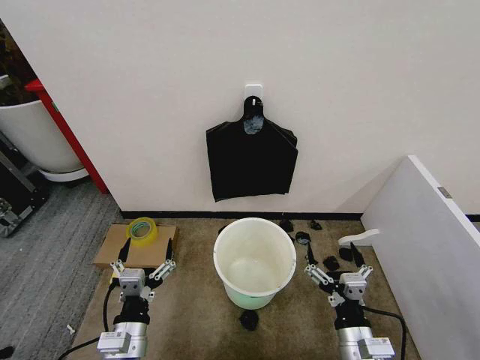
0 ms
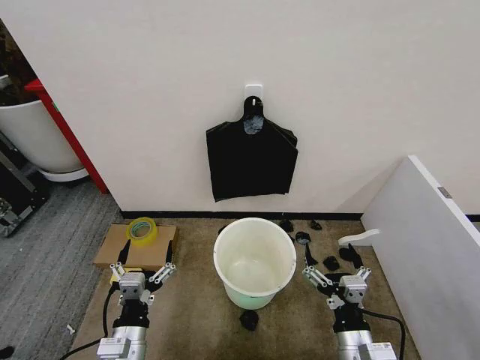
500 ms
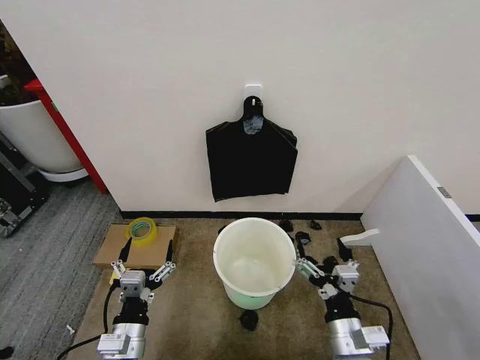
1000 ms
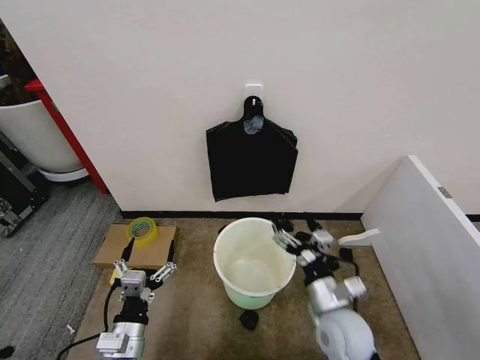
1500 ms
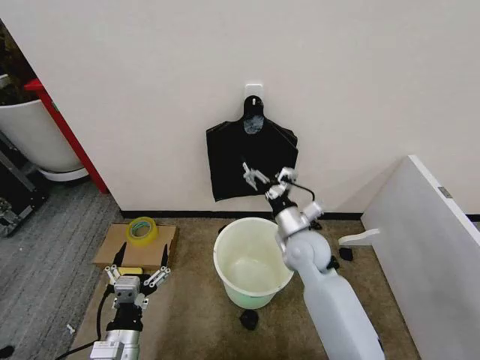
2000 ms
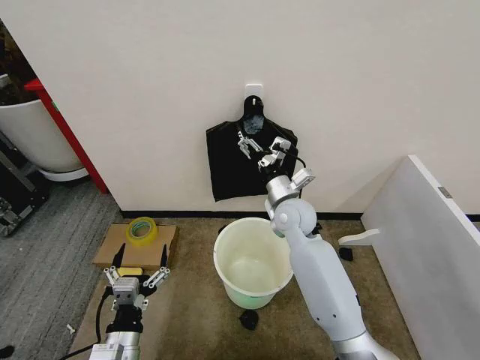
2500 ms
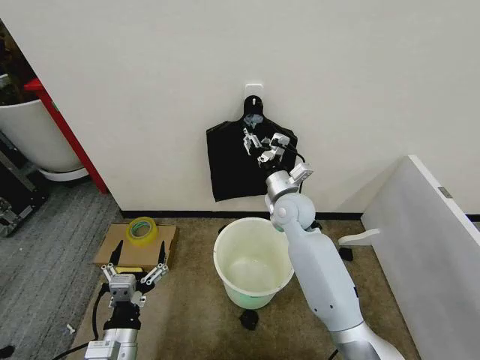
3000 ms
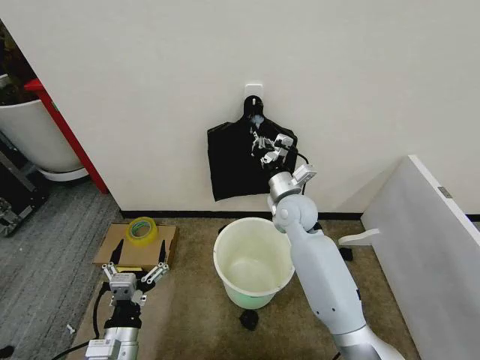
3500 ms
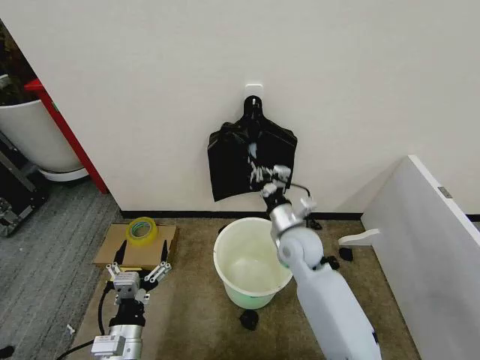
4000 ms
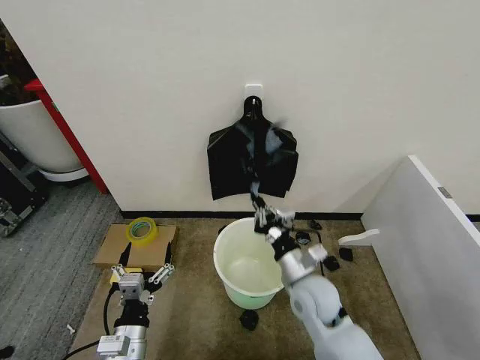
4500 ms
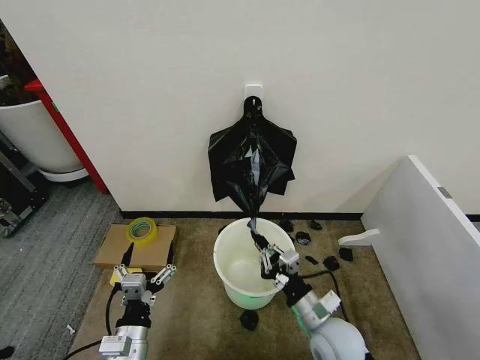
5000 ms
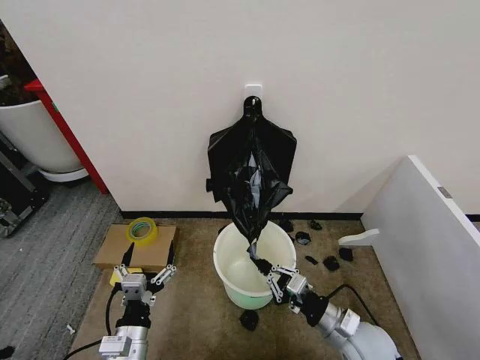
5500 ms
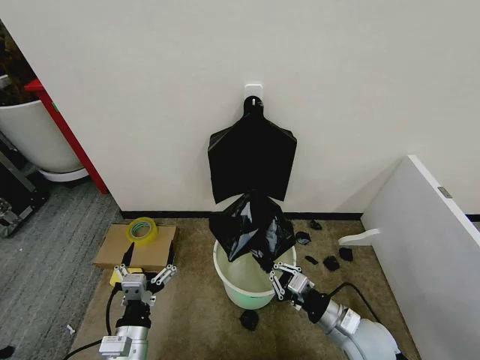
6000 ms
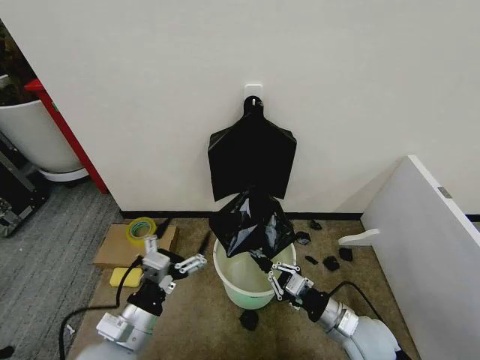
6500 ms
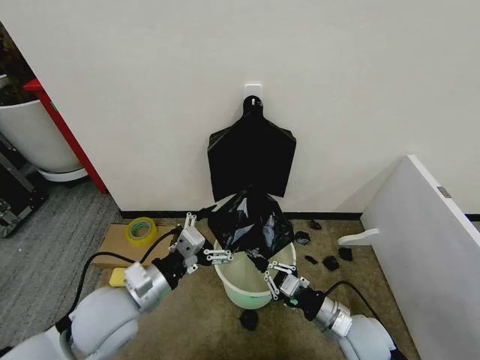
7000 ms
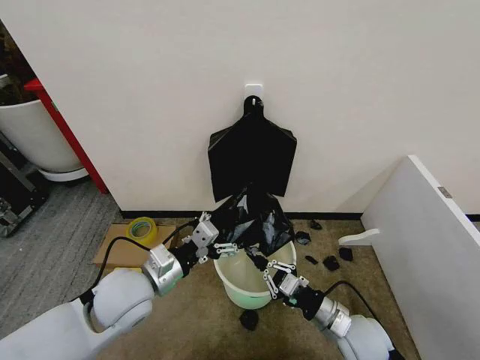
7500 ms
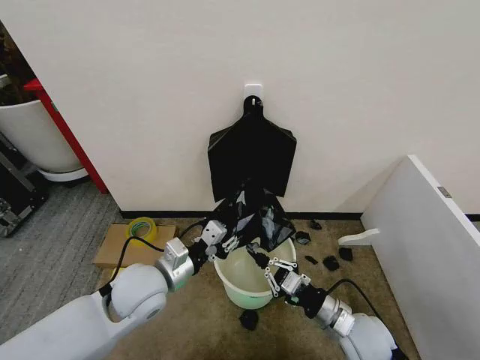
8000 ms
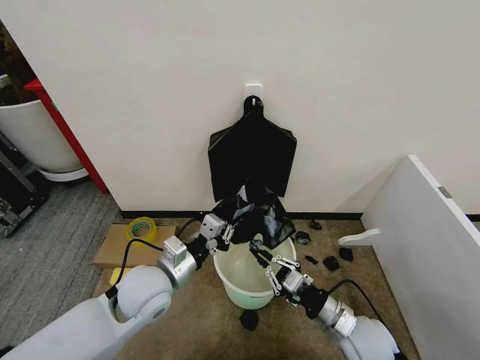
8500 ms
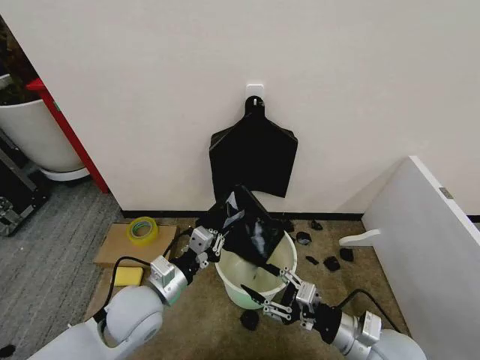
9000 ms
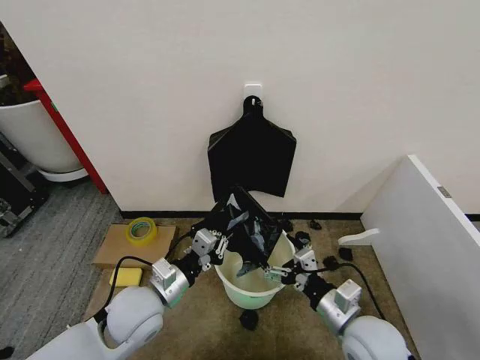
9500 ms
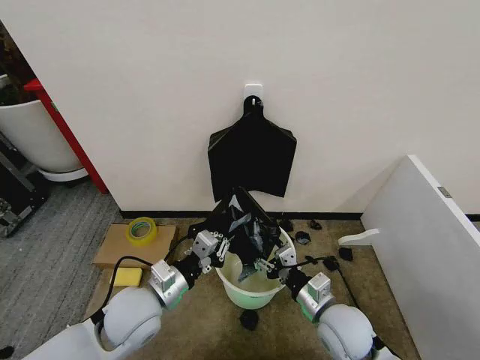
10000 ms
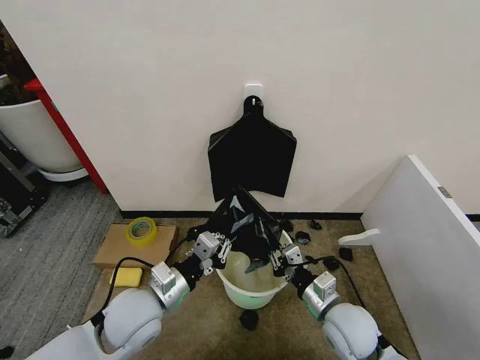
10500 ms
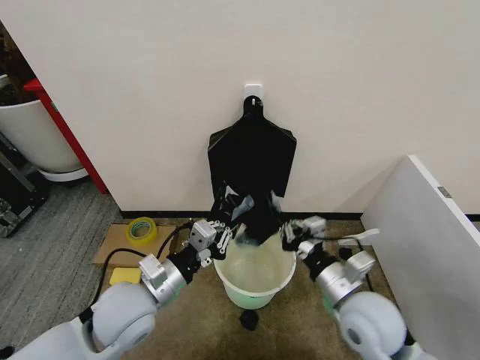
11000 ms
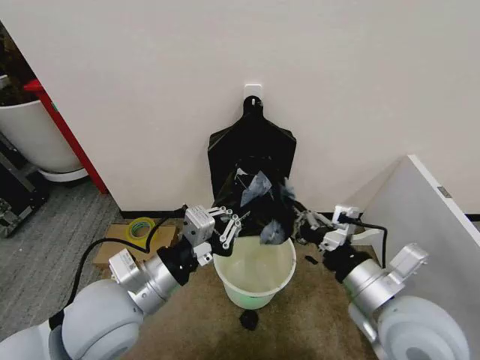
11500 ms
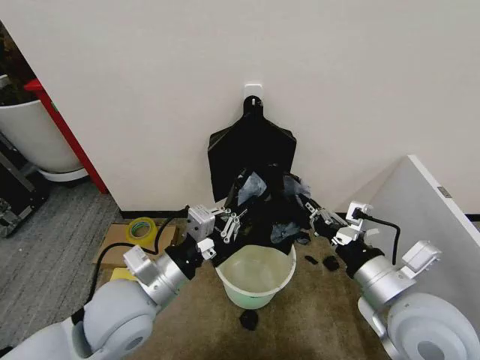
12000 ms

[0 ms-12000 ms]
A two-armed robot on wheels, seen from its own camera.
Task of the whole recording: Place the garbage bag over the trash bin.
2000 ms to 4000 ms: The right gripper reaches some 10 cm forward, then returns, and closes.
4000 ms to 6000 ms: The right gripper is displaced backward, to the right and downward by about 25 cm.
6000 ms to 8000 ms: The left gripper goes approximately 20 cm forward and upward, and closes its fingers.
8000 ms to 10000 ms: The right gripper opens up.
10000 ms to 12000 ms: The right gripper shifts roughly 15 cm upward, and closes. The left gripper is displaced upward by about 10 cm.

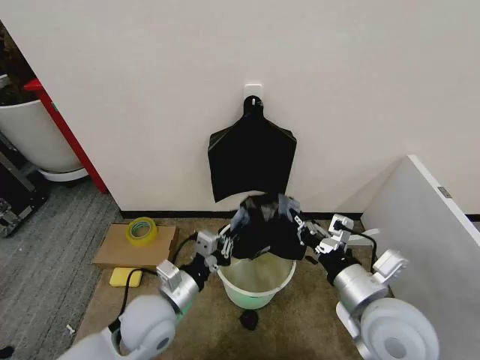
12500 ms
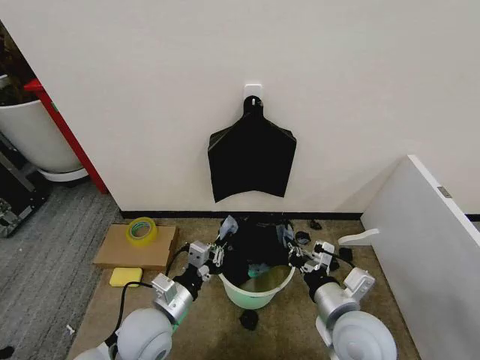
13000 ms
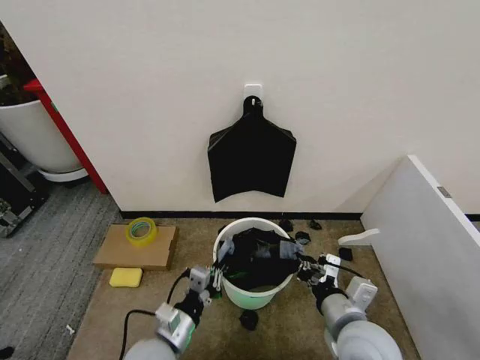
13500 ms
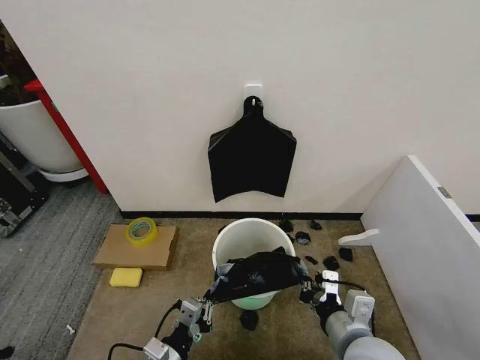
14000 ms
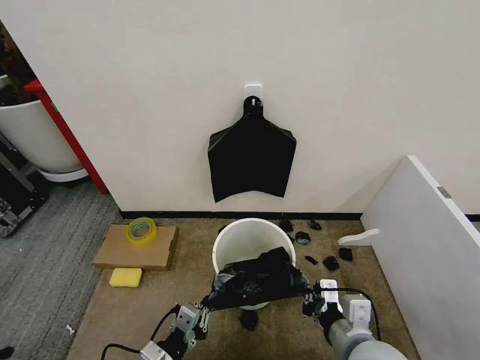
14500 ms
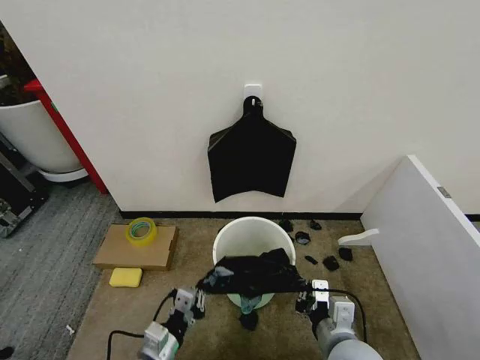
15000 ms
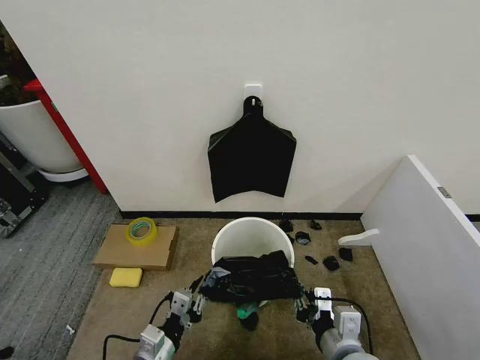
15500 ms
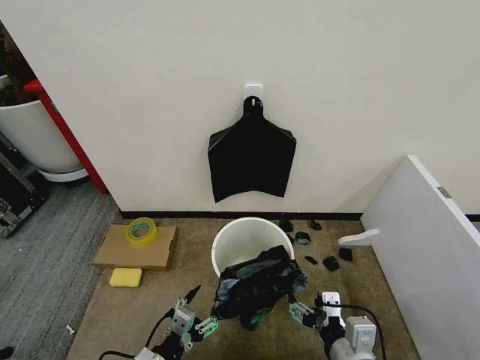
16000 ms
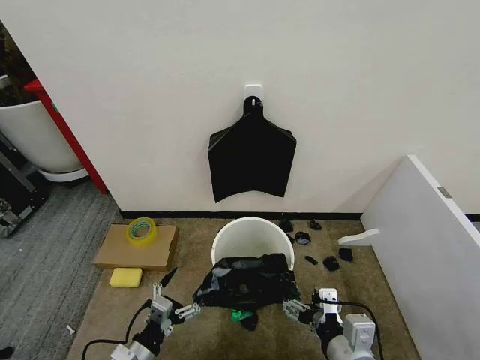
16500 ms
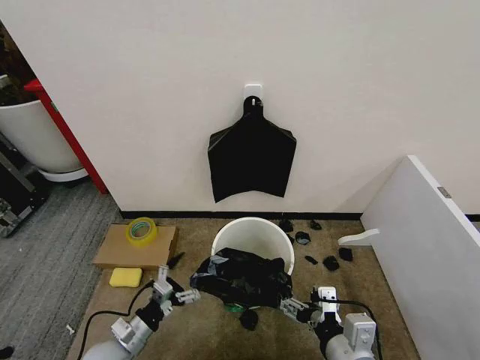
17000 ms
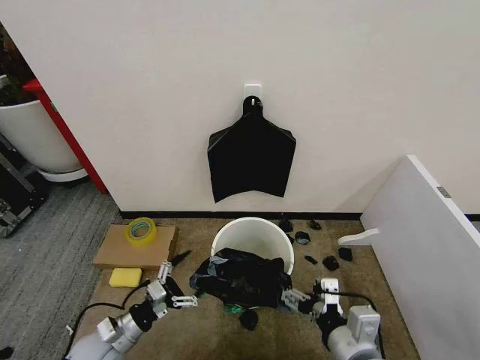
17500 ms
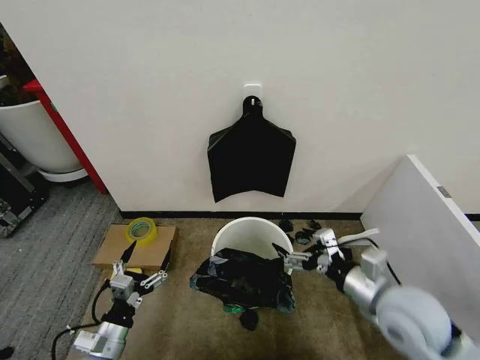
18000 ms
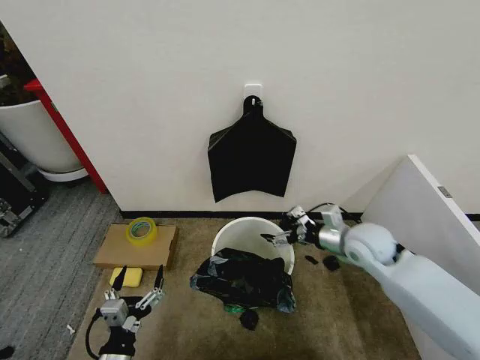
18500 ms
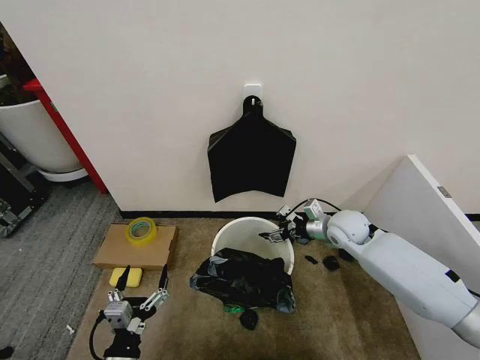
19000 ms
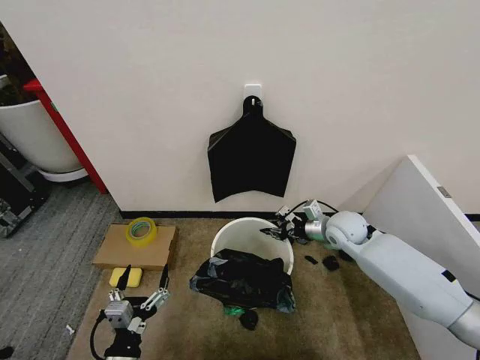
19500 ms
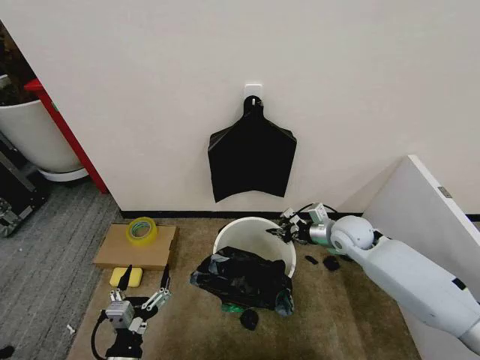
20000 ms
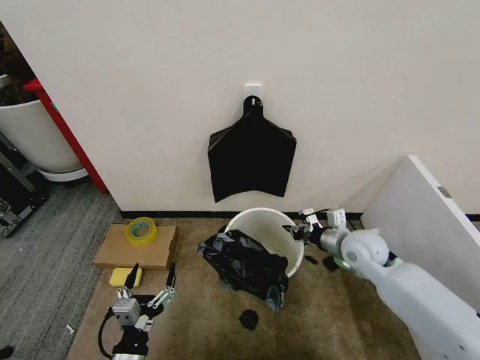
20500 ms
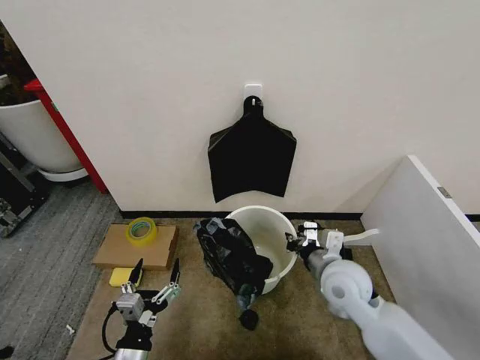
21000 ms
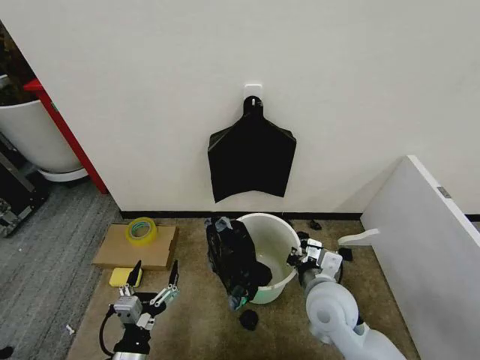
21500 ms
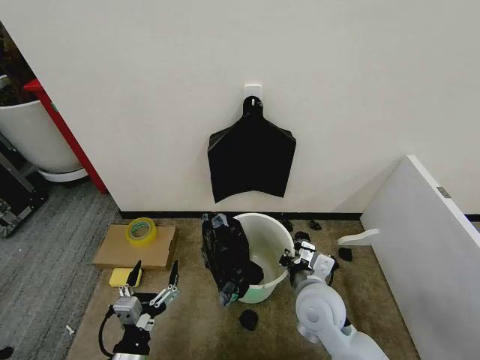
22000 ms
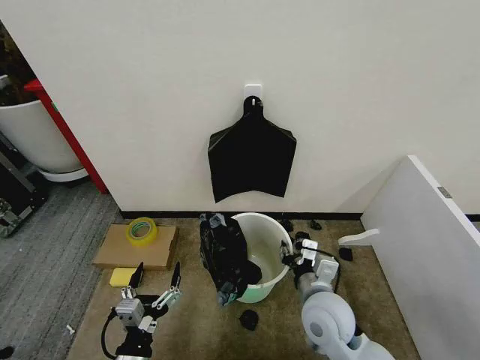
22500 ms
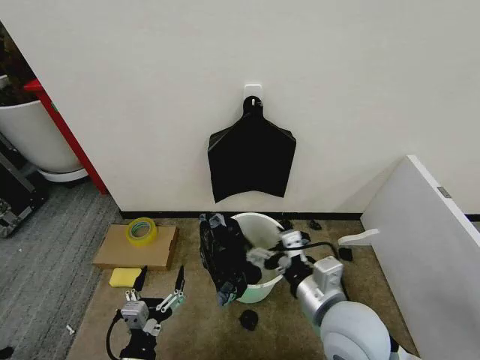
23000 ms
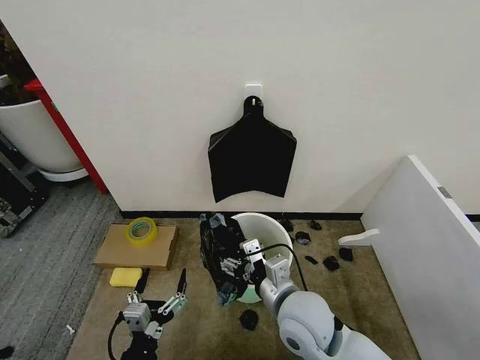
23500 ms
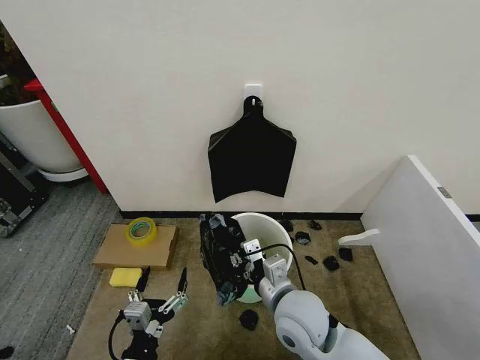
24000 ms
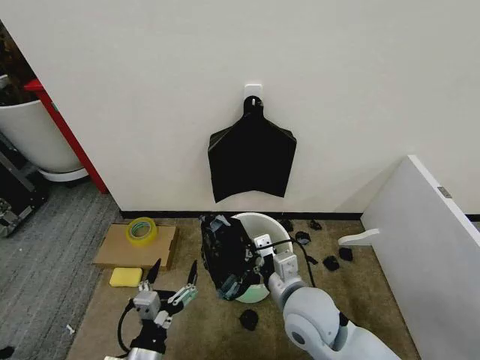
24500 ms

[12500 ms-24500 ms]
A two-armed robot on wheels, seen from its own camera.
Task of the whole recording: Place the garbage bag over the trash bin.
12500 ms to 14500 ms: The right gripper heads downward, covering about 5 cm; the left gripper heads backward and downward, covering about 15 cm.
14500 ms to 16500 ms: The right gripper opens up. The left gripper ends up approximately 5 cm from where it was, and opens its fingers.
16500 ms to 18500 ms: The left gripper reaches roughly 10 cm forward, then returns. The right gripper moves forward, approximately 25 cm.
18500 ms to 20500 ms: The right gripper closes up.
20500 ms to 22500 ms: The right gripper moves backward and to the left, approximately 20 cm, and opens up.
22500 ms to 24500 ms: The right gripper closes its fingers.

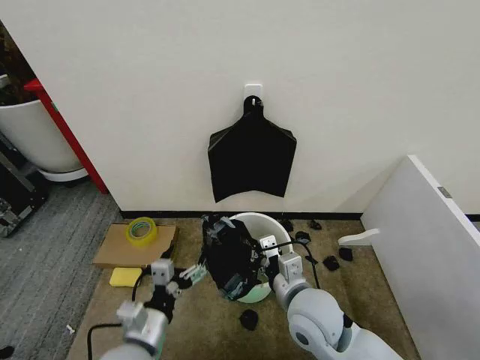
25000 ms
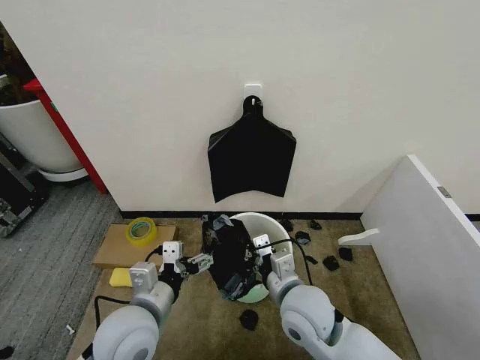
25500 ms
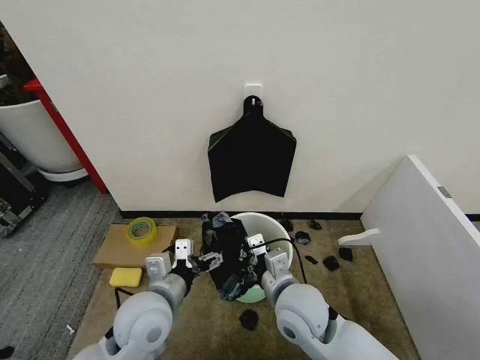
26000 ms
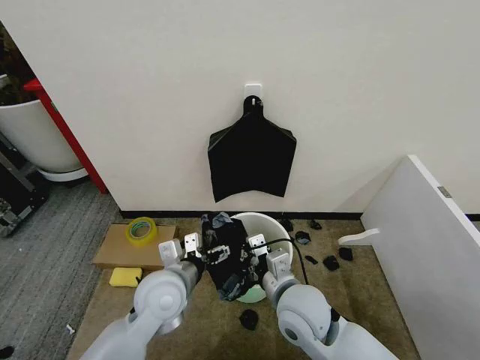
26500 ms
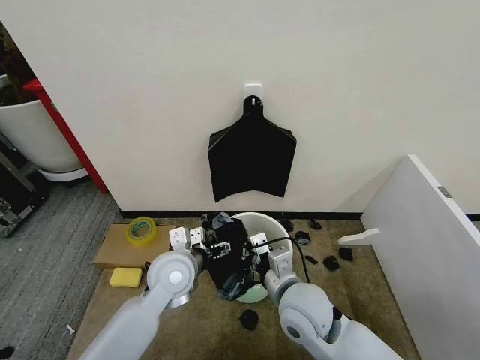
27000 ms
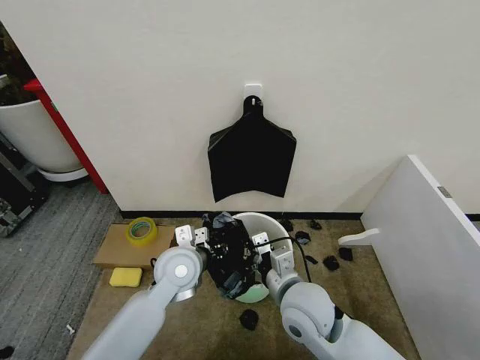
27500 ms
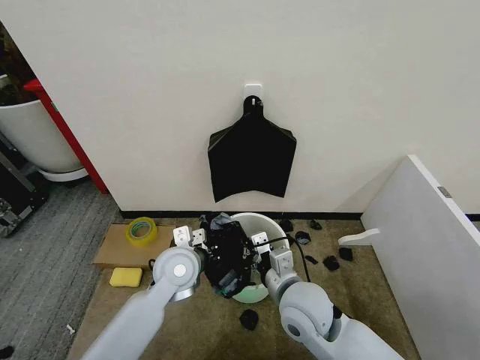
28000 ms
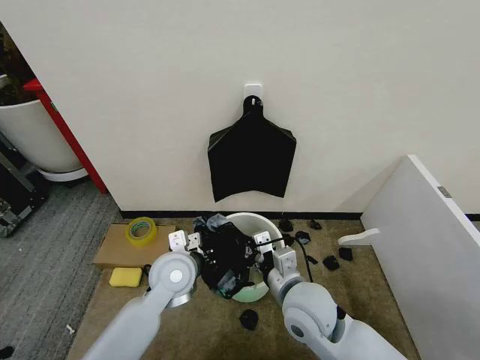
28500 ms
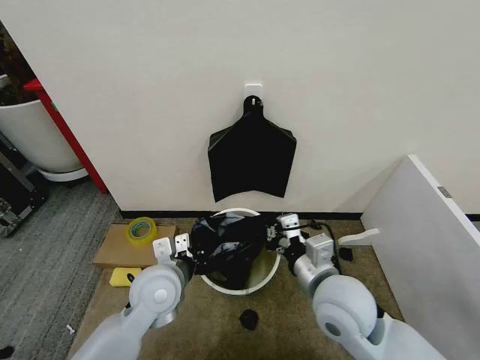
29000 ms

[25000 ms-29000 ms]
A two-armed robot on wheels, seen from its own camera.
Task of the whole recording: Place the garbage bag over the trash bin.
25000 ms to 27000 ms: The left gripper travels forward by roughly 15 cm.
27000 ms to 29000 ms: The left gripper closes its fingers; the right gripper goes approximately 5 cm upward and to the right.
